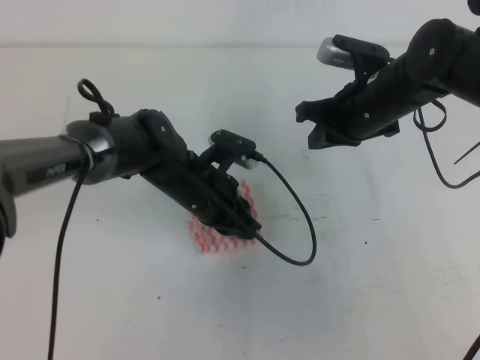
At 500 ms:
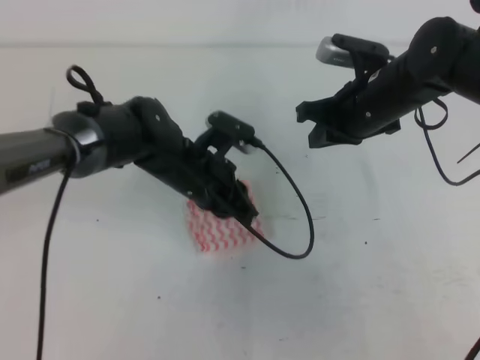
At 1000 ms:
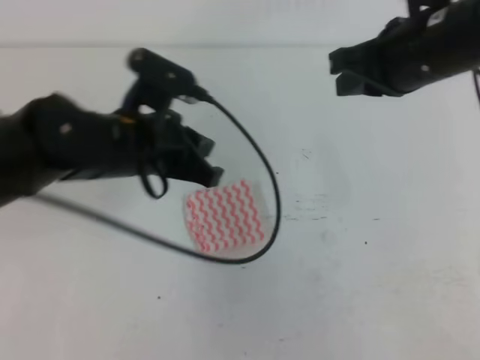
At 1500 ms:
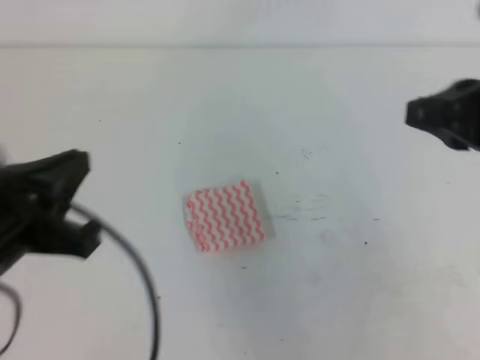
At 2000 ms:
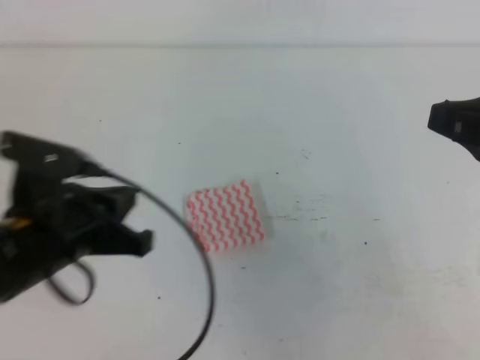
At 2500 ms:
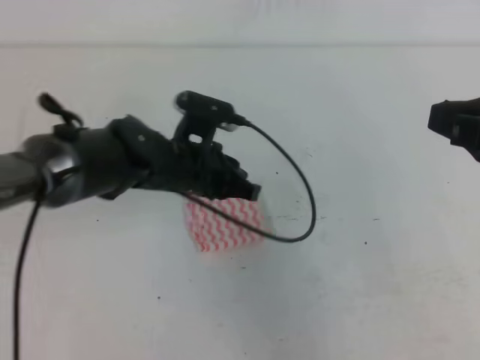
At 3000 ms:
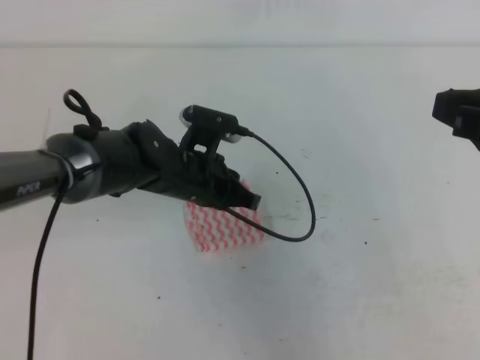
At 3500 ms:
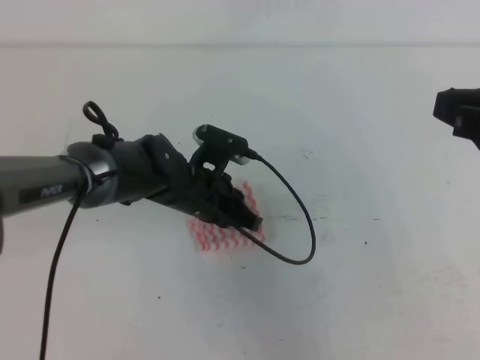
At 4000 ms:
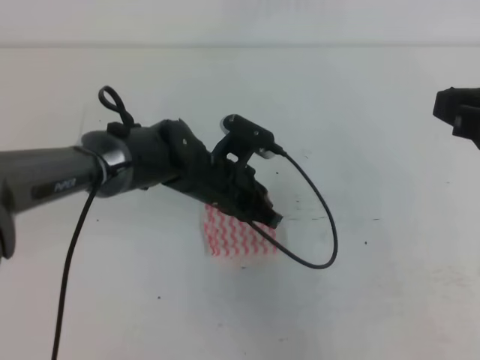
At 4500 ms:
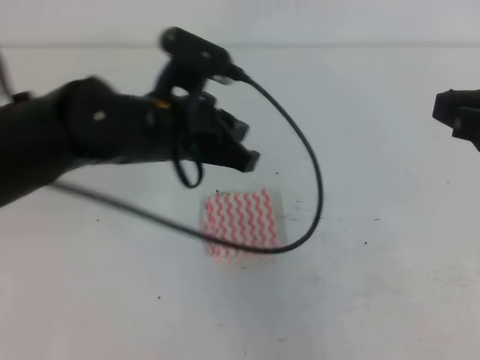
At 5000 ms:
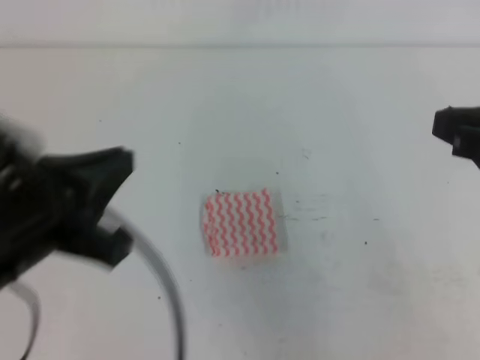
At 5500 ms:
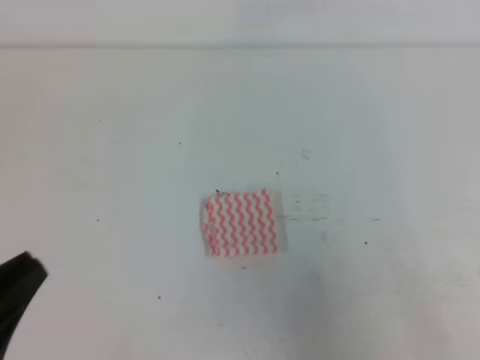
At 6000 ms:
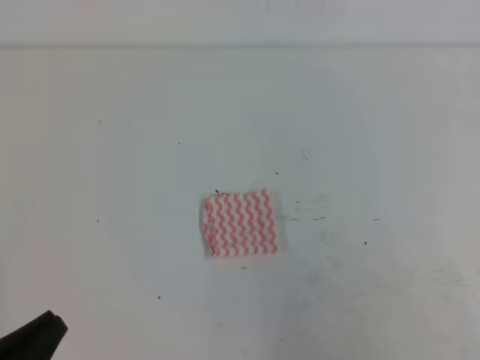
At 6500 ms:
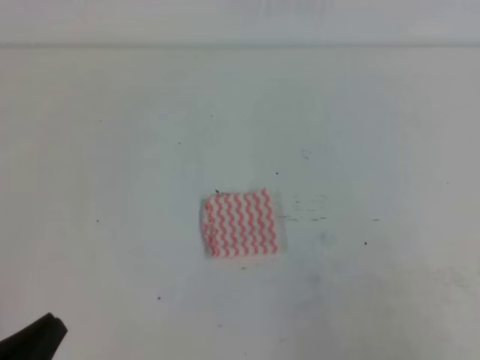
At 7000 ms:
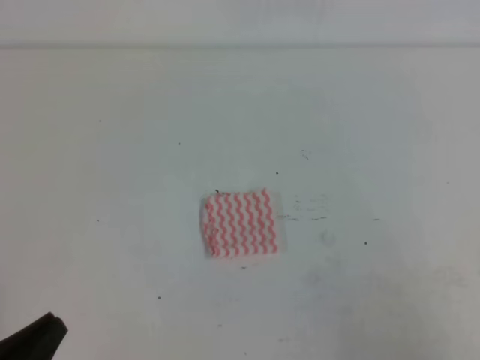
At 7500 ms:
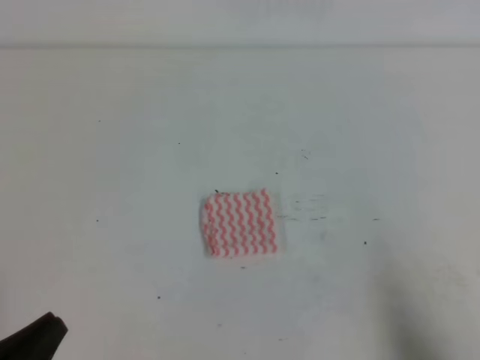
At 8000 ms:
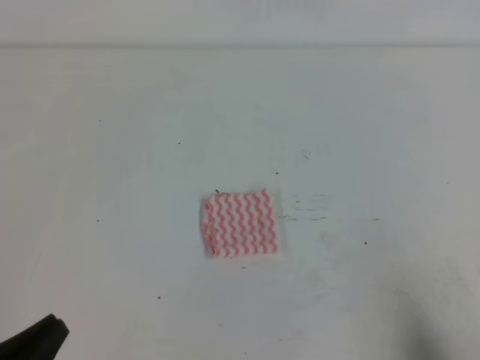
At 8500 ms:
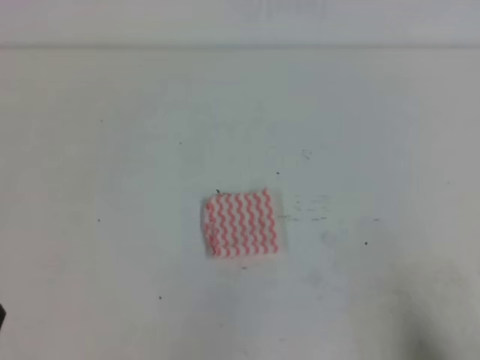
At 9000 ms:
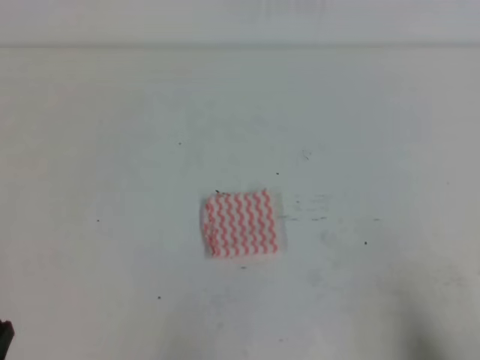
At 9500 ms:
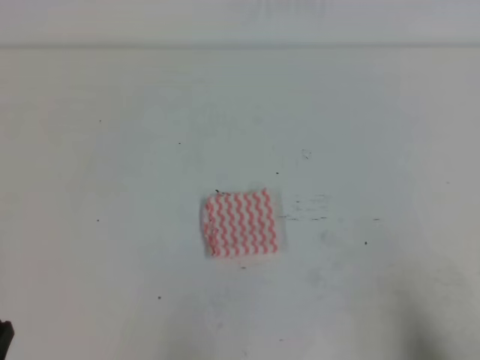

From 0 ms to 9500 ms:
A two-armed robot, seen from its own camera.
Step, from 0 ms to 9500 ms: Fold the towel.
From 0 ms to 2000 ms: The right gripper heads backward and upward, covering about 25 cm; the left gripper goes roughly 20 cm backward, to the left and upward.
From 2000 ms to 4000 ms: The left gripper travels forward, to the right and downward by some 20 cm.
From 4000 ms to 5500 ms: The left gripper shifts approximately 35 cm backward and to the left. Meanwhile the right gripper is displaced backward by roughly 10 cm.
From 5500 ms to 7500 ms: The left gripper is displaced downward by about 10 cm; the right gripper moves downward and backward, about 15 cm.

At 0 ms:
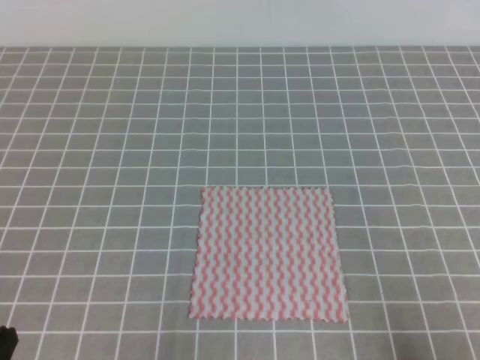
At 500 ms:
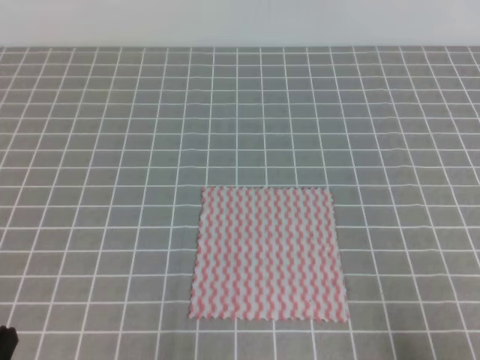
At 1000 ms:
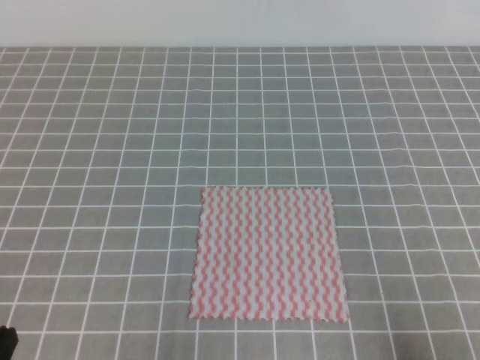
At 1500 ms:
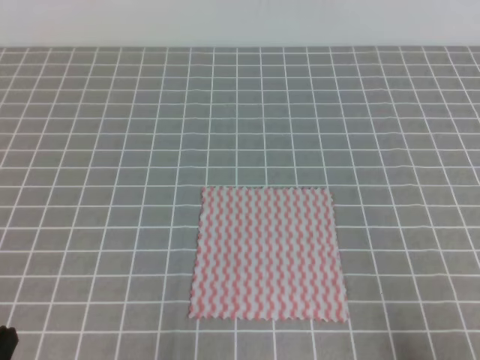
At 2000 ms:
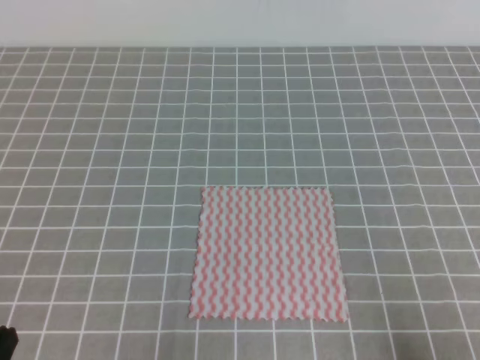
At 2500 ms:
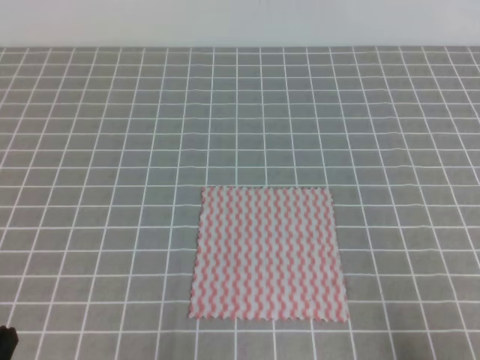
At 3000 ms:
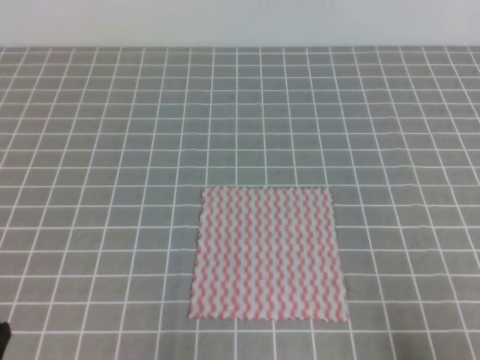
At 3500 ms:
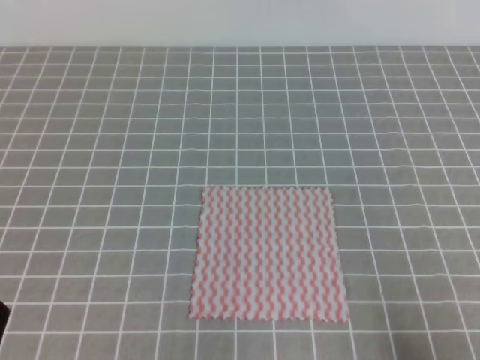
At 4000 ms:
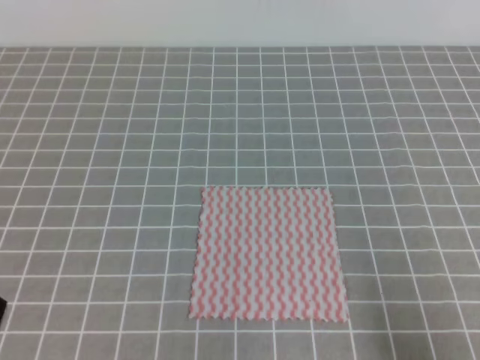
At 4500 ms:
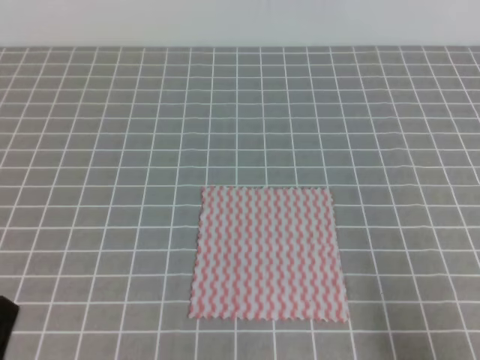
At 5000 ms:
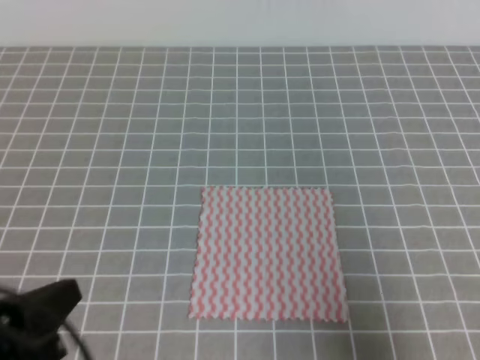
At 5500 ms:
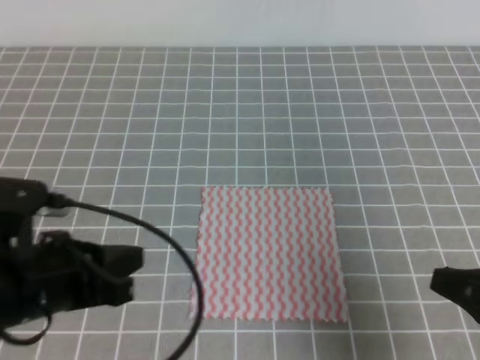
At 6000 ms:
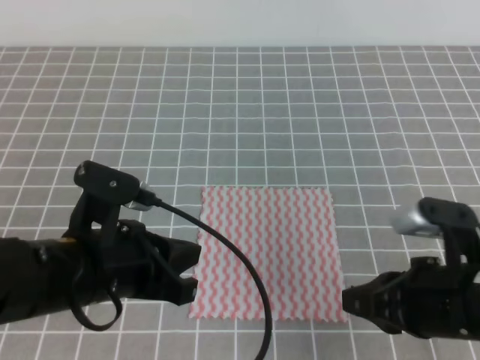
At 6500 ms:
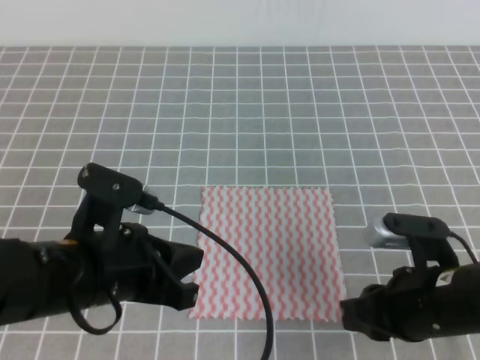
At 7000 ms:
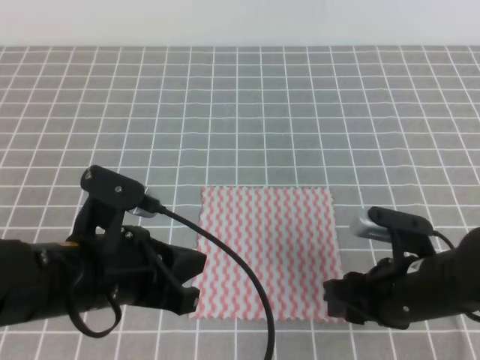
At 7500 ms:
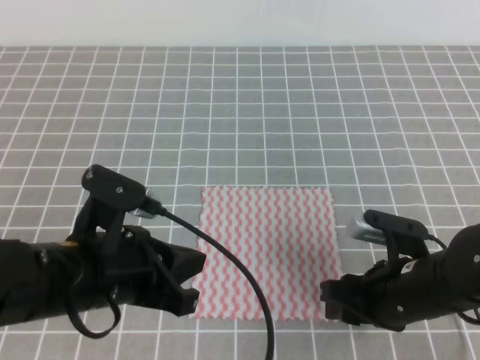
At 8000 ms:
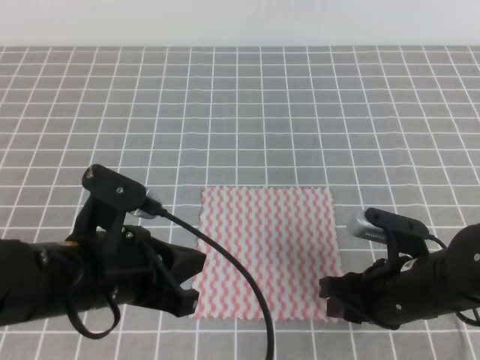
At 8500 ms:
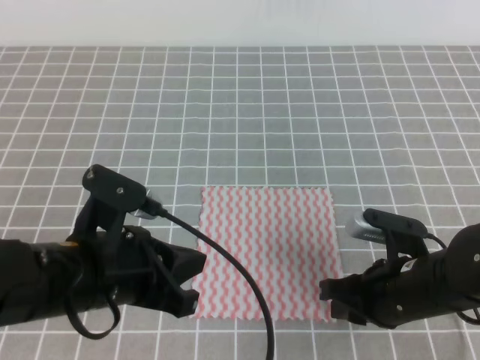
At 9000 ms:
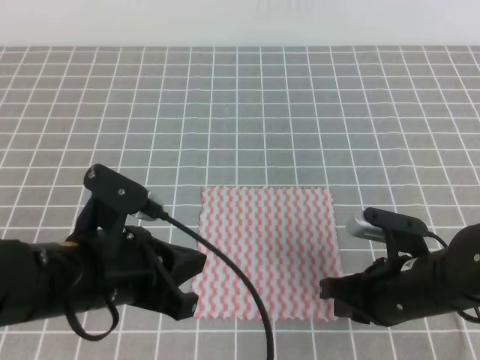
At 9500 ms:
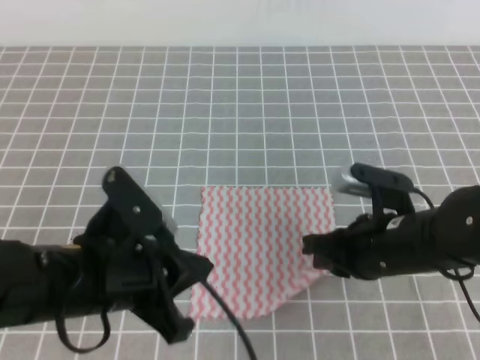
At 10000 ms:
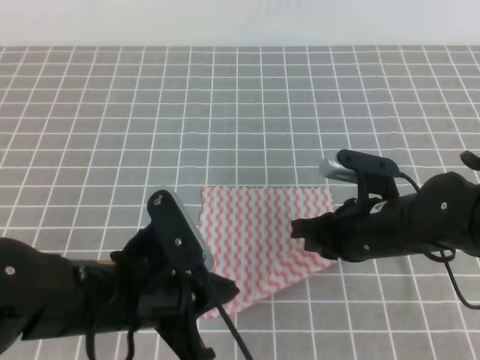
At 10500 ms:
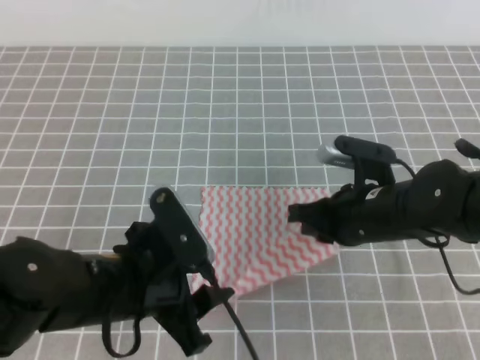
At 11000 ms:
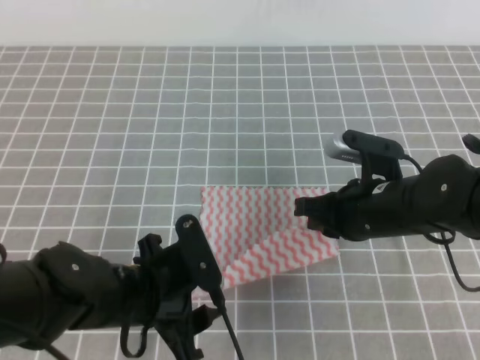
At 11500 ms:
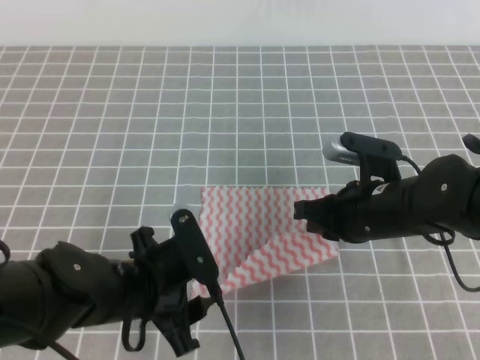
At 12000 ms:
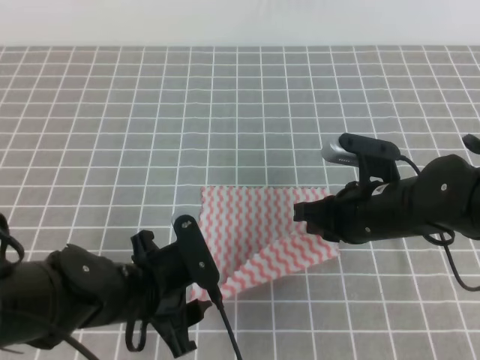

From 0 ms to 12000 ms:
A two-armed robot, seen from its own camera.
From 0 ms to 2000 ms: Neither gripper changes place.
From 4000 ms to 6000 ms: The right gripper shifts about 15 cm forward and to the left. Meanwhile the left gripper heads forward and to the right, covering about 20 cm.
From 6000 ms to 8000 ms: The right gripper shifts approximately 10 cm downward and forward, and opens.
From 8000 ms to 10000 ms: The right gripper shifts by approximately 5 cm, and closes up.
From 10000 ms to 12000 ms: The left gripper is displaced downward by approximately 5 cm, and opens its fingers.

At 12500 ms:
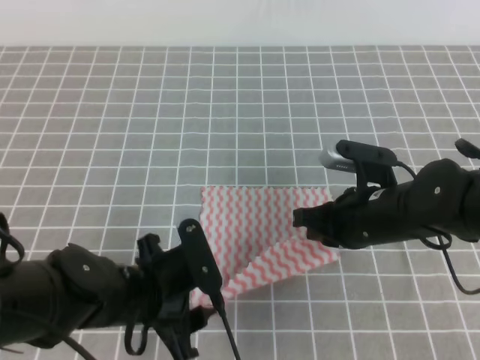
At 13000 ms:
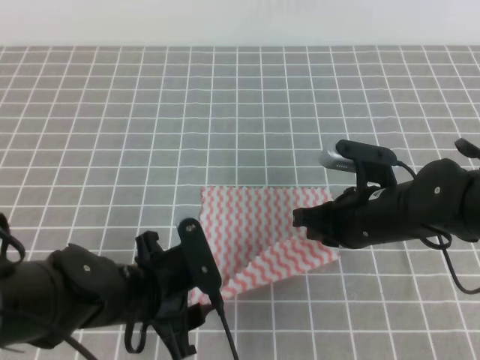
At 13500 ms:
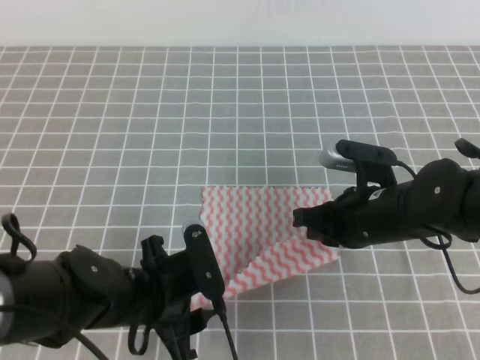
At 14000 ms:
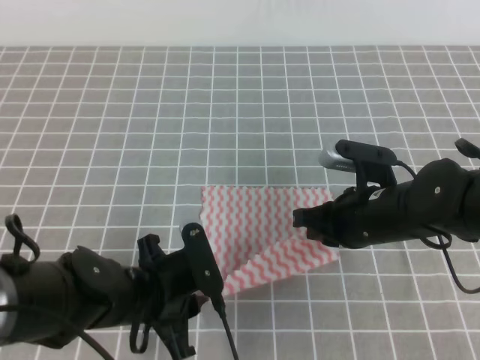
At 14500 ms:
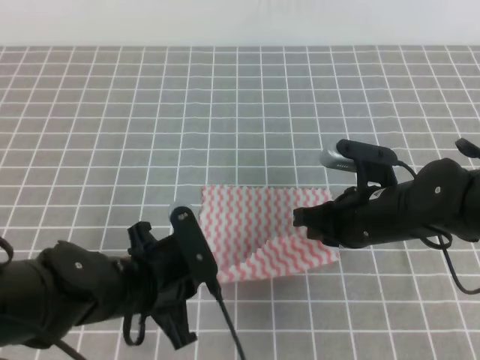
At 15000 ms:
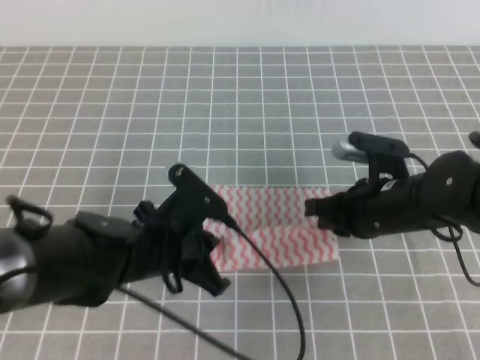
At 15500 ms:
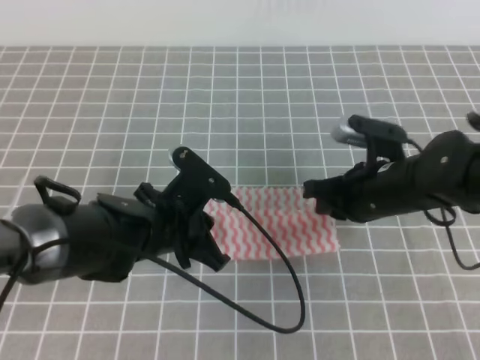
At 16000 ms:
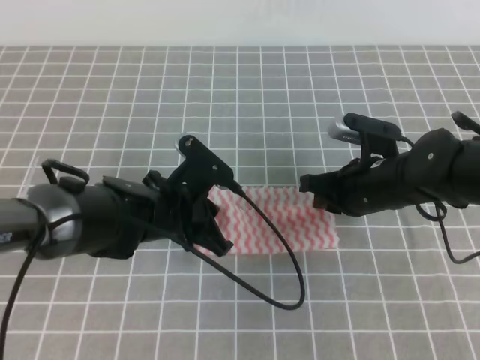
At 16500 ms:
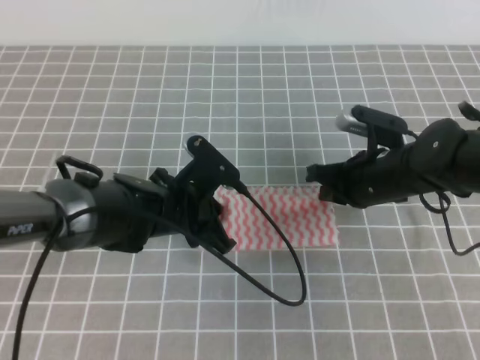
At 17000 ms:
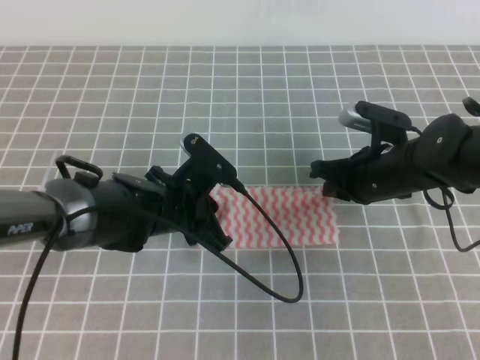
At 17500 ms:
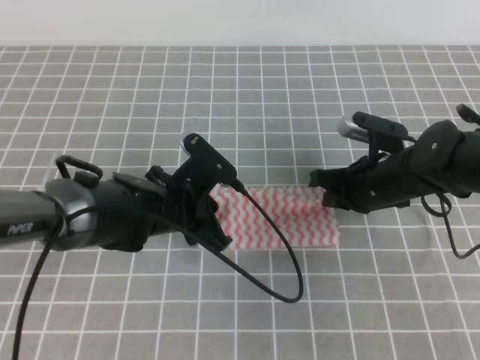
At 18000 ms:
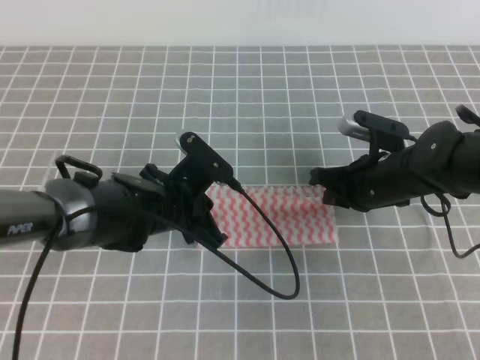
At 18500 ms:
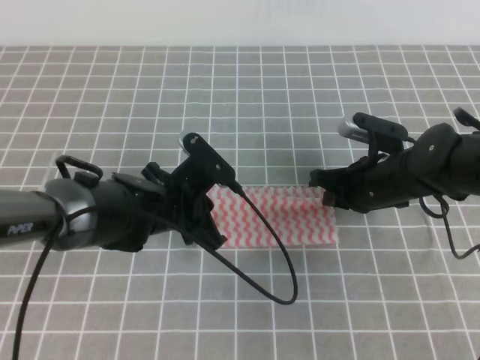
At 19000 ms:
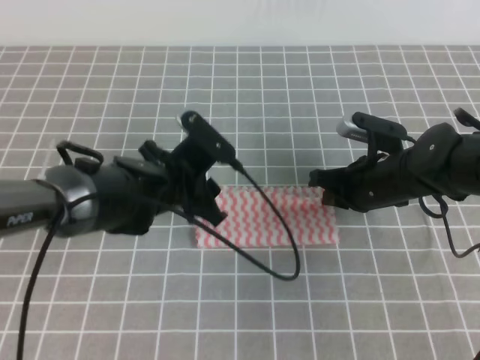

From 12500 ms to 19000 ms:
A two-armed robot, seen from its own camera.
From 12500 ms to 14500 ms: The left gripper closes its fingers.
From 14500 ms to 17000 ms: The left gripper heads forward, covering approximately 10 cm. The right gripper shifts roughly 5 cm forward.
From 17000 ms to 19000 ms: The left gripper opens up.
